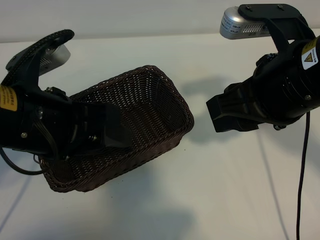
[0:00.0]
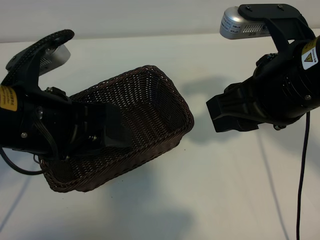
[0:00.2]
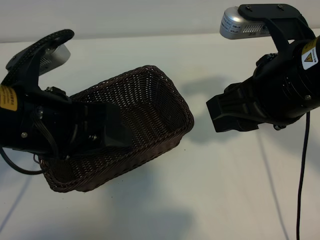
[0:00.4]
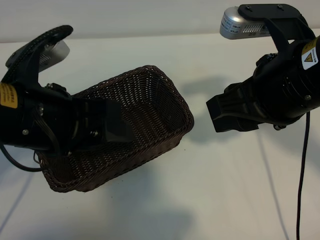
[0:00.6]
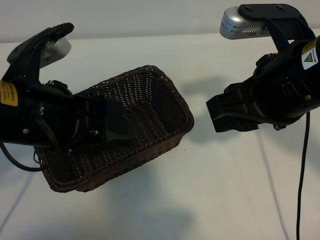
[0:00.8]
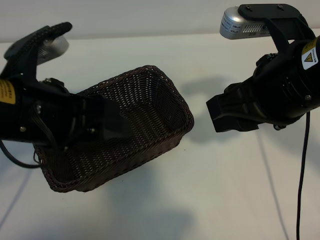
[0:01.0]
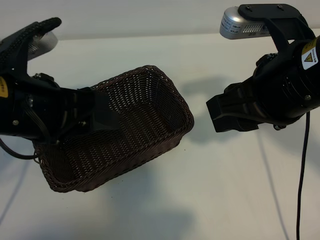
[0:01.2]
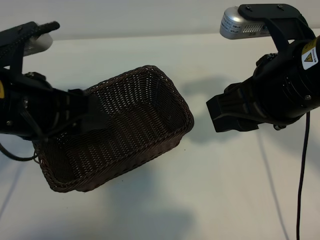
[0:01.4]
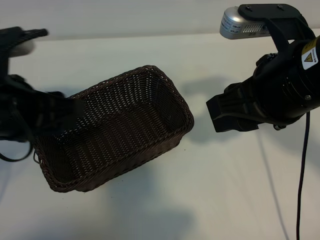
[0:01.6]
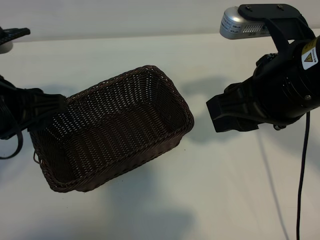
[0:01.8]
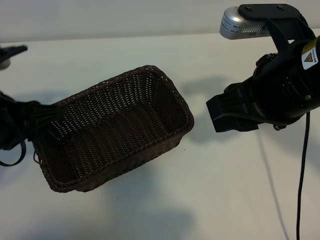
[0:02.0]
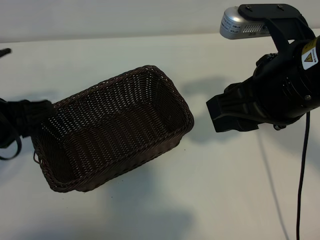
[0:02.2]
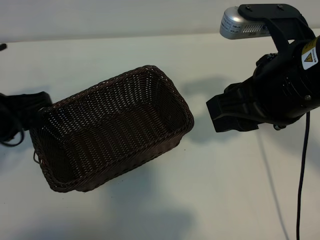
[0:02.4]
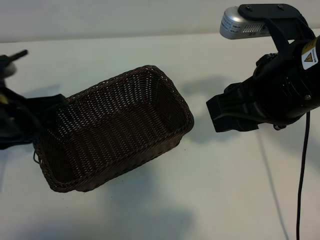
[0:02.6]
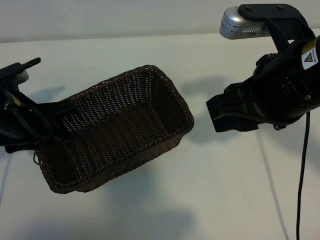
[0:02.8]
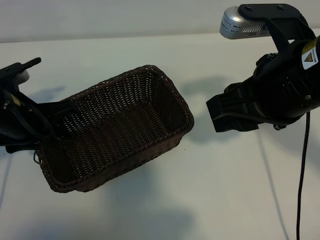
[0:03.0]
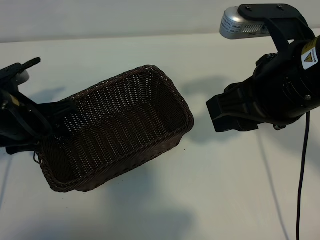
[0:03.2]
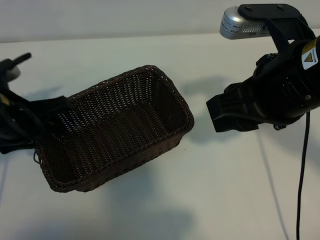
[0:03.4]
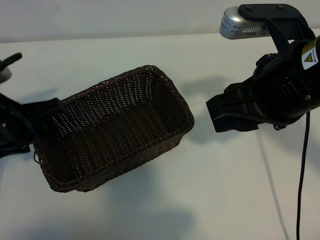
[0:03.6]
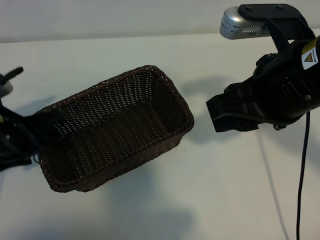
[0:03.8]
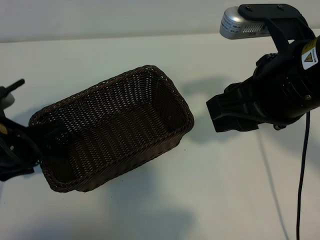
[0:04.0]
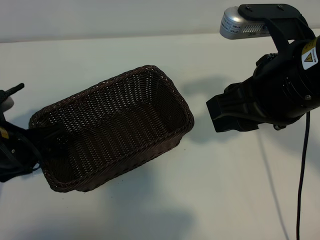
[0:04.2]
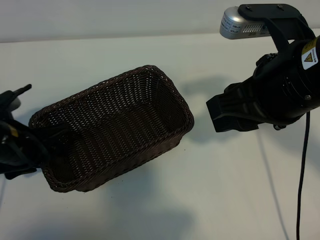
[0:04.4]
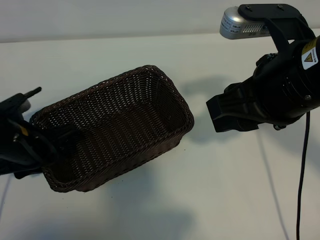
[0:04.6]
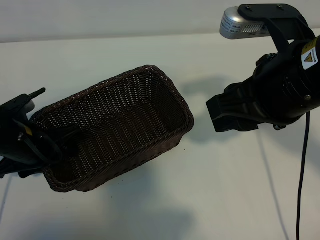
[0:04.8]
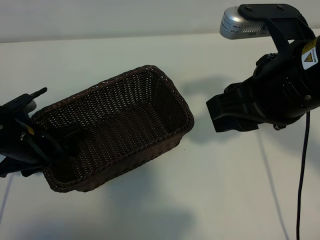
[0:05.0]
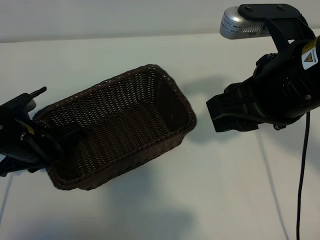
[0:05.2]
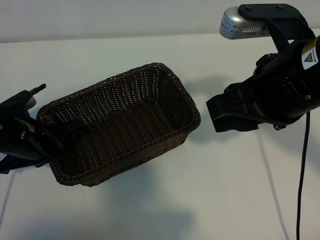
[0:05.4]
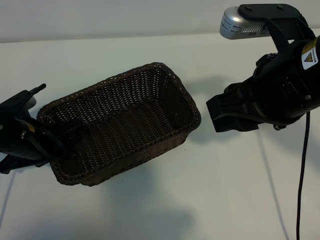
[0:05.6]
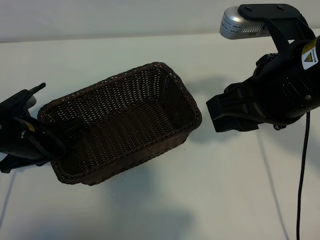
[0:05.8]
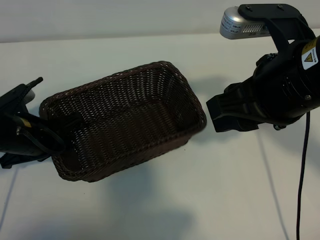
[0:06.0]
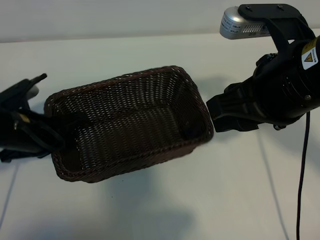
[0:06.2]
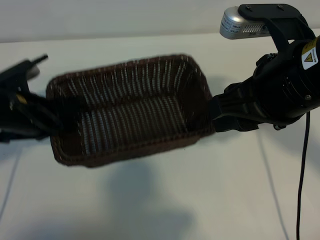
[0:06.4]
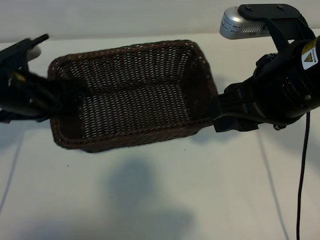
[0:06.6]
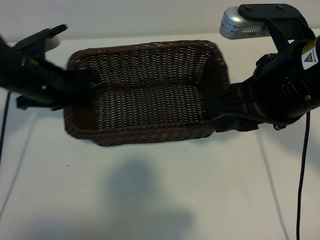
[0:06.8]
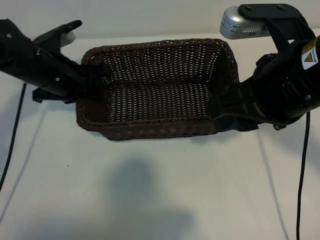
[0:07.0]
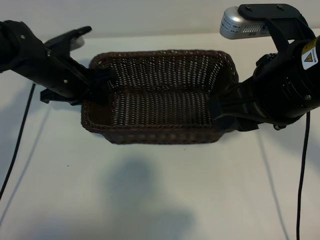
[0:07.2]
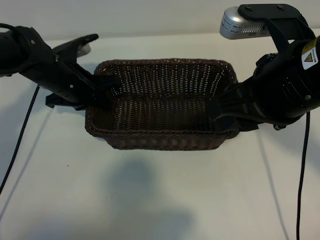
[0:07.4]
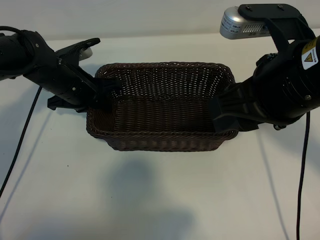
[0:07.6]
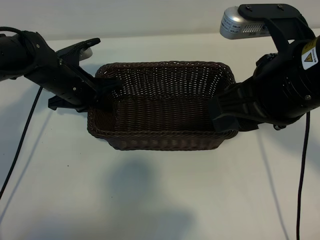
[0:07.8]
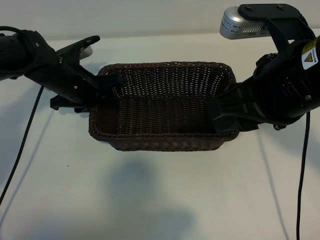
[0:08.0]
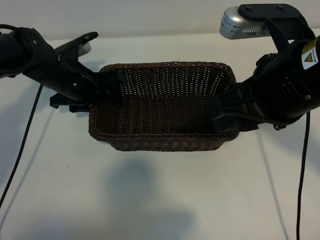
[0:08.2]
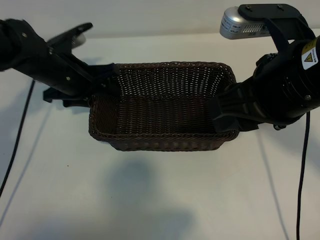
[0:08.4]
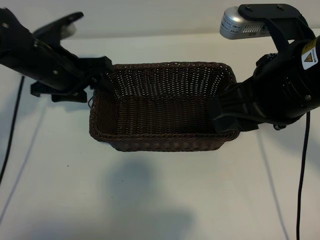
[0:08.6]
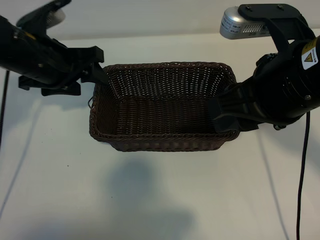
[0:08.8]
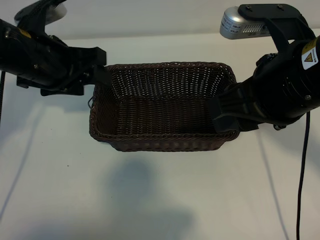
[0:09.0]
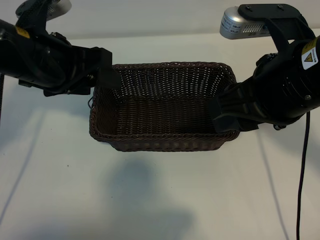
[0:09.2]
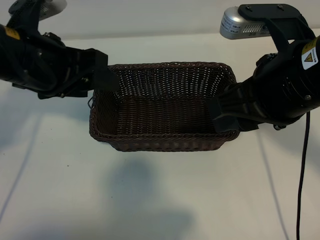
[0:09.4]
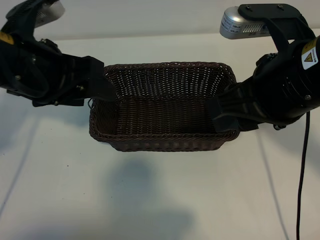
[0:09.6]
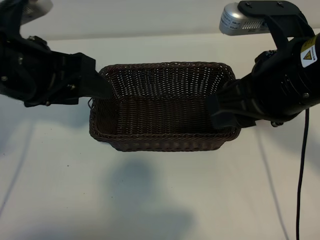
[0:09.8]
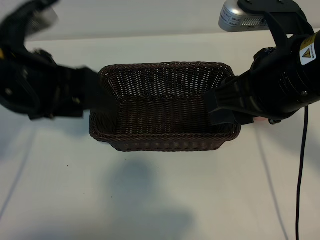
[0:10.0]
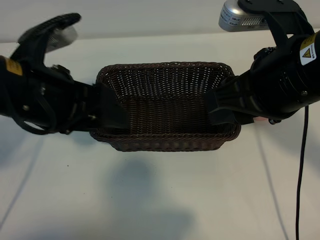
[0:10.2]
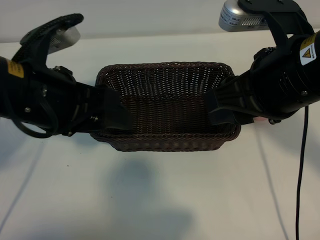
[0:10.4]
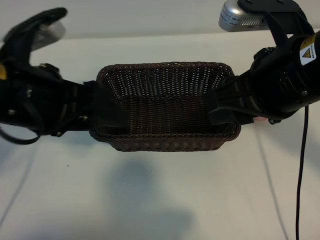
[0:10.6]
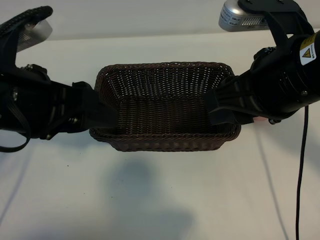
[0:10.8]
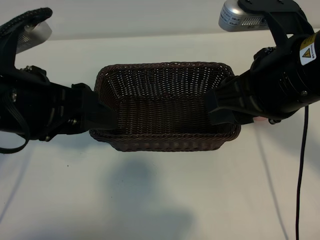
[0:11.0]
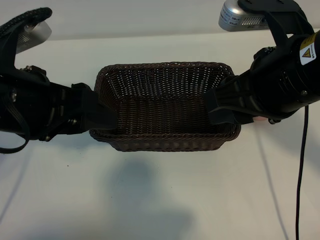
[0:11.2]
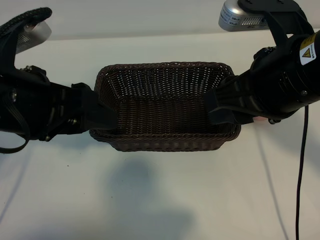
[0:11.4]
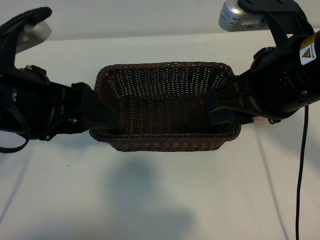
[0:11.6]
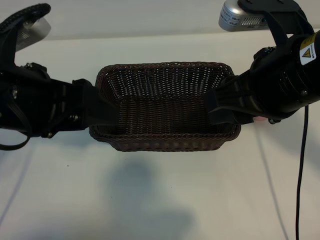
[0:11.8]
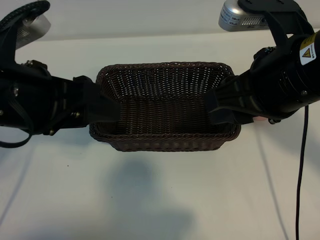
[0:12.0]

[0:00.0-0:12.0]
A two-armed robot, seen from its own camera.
Task of the whole recording: pick up the peach and put it into the basket.
Step, 0:00.8 to 0:05.4: Grasp the basket with left gripper.
Step, 0:05.6 to 0:09.6: Place the basket in the center of view with left gripper.

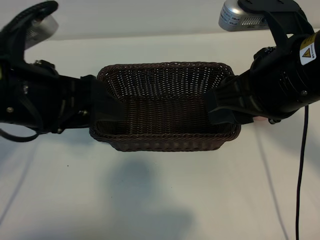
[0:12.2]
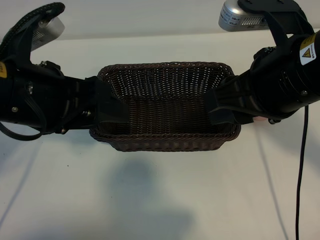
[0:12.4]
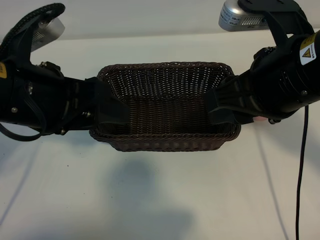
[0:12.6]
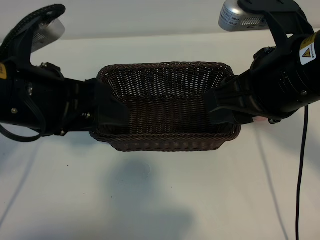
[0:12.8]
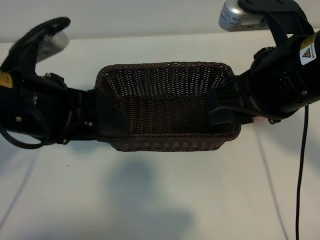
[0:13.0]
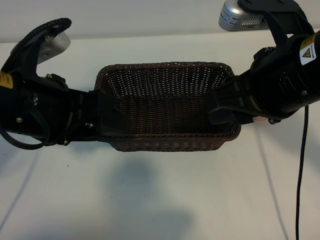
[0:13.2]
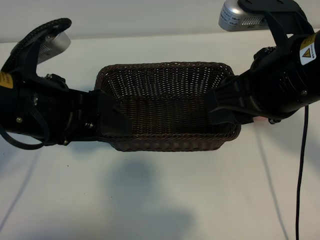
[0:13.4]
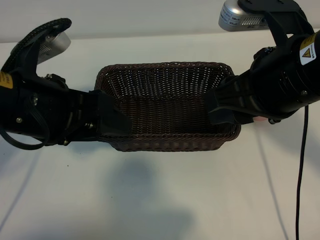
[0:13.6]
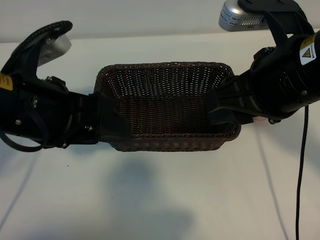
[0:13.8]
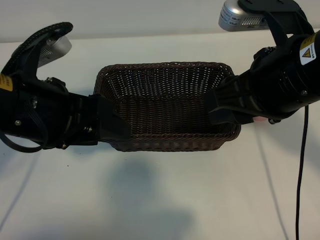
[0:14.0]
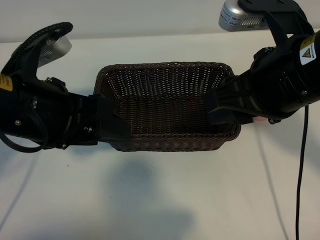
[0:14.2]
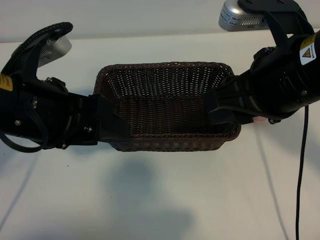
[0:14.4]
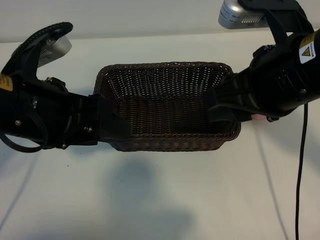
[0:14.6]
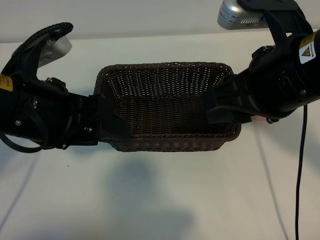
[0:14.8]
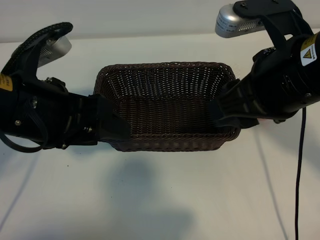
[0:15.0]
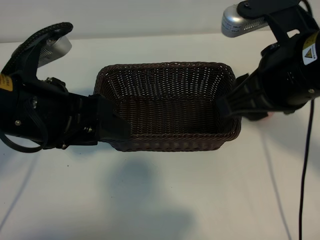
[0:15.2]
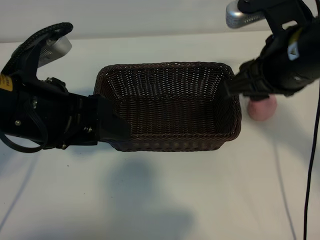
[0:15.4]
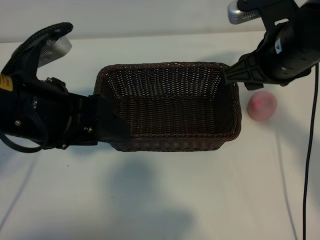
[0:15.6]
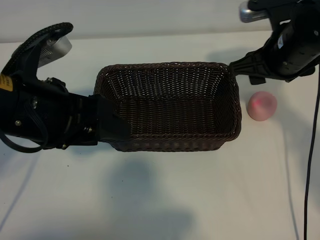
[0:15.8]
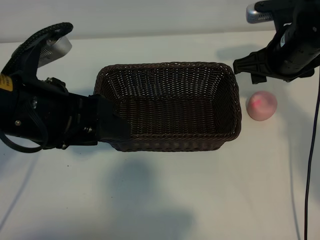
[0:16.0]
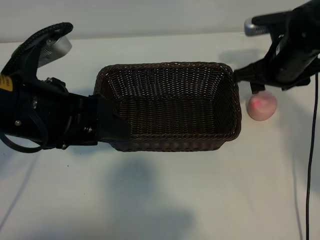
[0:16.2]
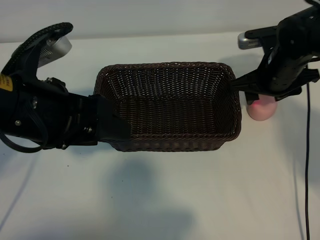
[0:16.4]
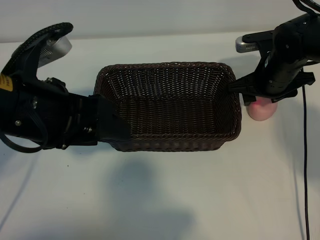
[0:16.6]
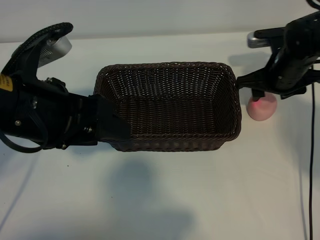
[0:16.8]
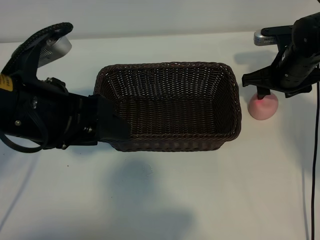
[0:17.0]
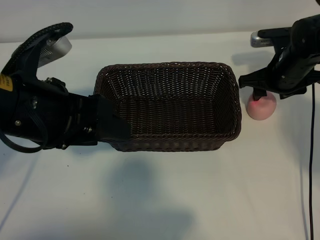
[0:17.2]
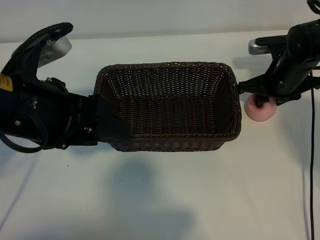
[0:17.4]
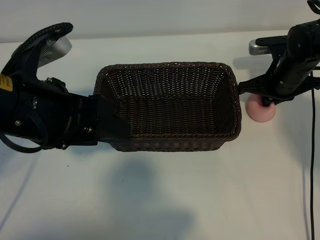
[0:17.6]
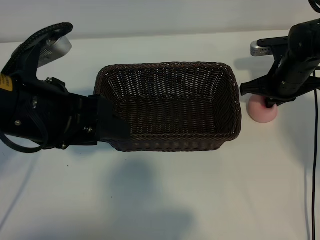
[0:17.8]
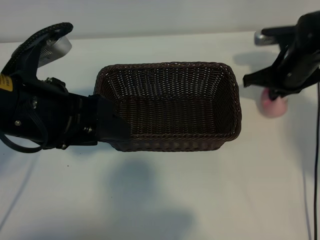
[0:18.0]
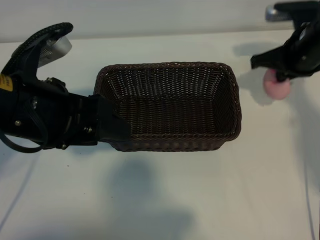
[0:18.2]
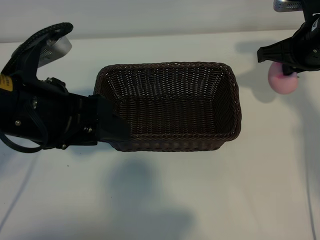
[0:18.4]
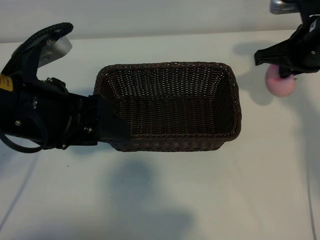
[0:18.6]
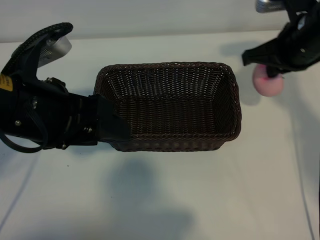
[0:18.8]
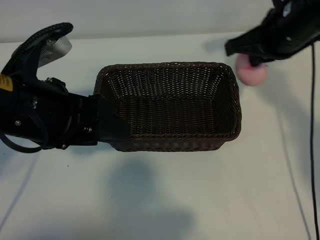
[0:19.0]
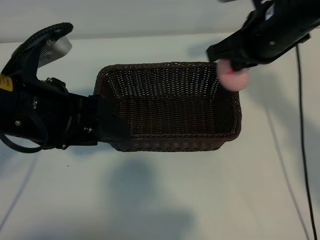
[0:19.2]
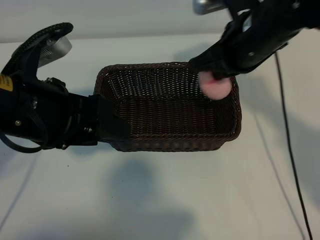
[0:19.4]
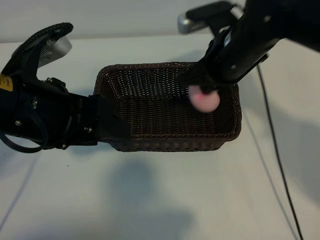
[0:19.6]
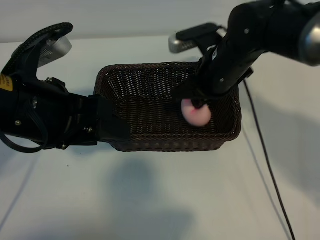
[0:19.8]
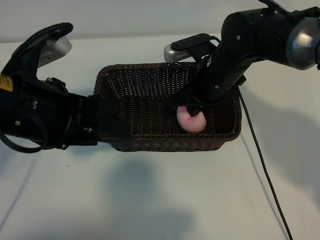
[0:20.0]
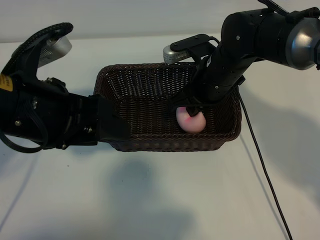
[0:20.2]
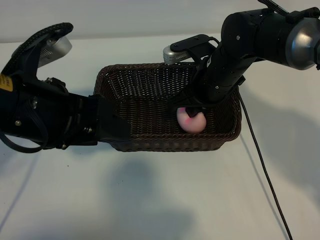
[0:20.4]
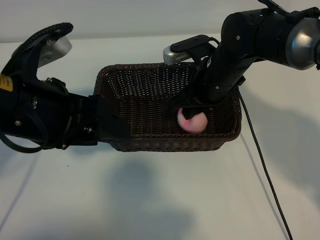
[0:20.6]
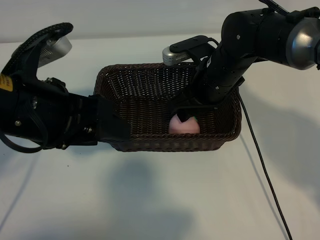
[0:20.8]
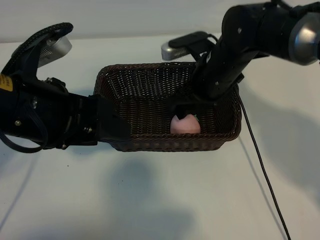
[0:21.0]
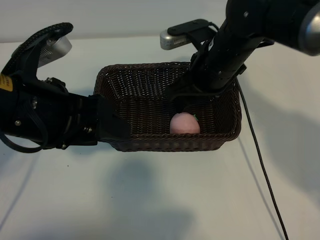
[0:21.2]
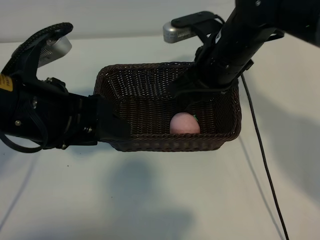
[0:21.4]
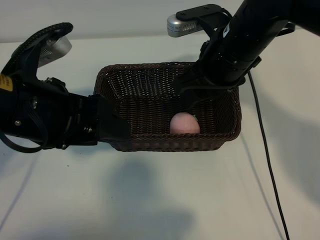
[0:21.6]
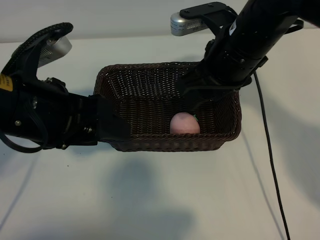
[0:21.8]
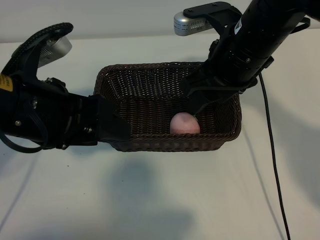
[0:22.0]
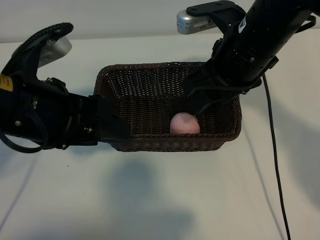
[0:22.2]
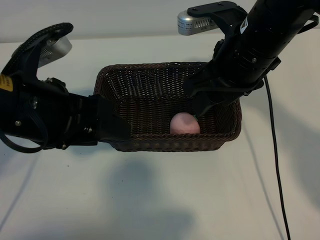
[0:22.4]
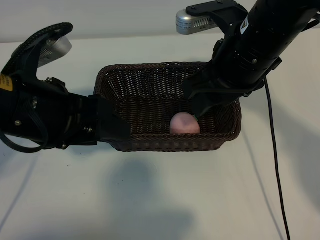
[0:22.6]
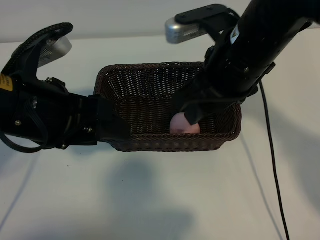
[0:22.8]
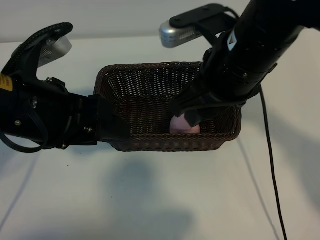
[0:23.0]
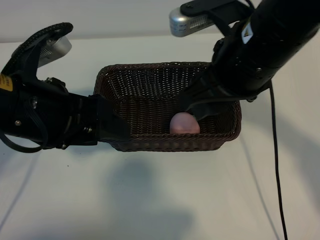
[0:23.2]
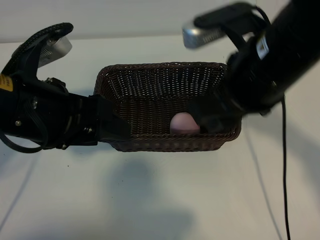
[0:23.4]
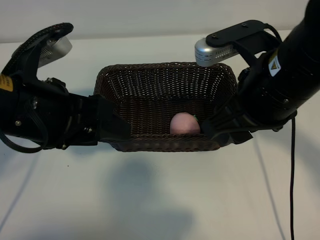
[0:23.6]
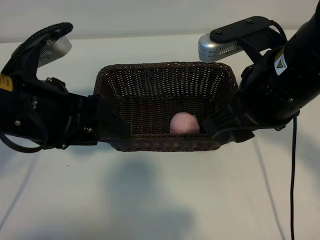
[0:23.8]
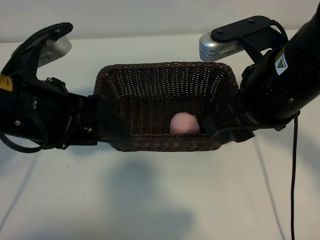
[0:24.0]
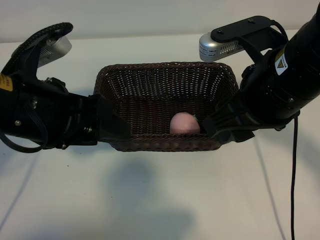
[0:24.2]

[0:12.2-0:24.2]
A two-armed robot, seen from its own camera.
Task of the whole recording: pick up the peach and put it into the basket.
Step, 0:12.2 to 0:17.8: Grasp the peach with right gripper.
Step, 0:18.0 to 0:21.0: Place the peach in the basket with right gripper.
